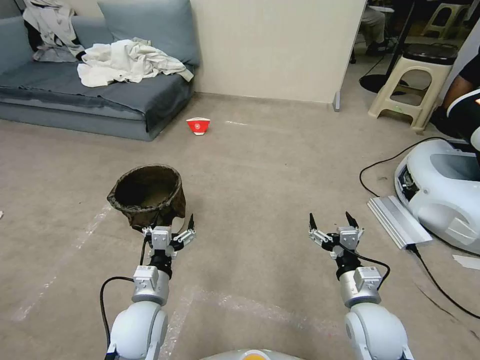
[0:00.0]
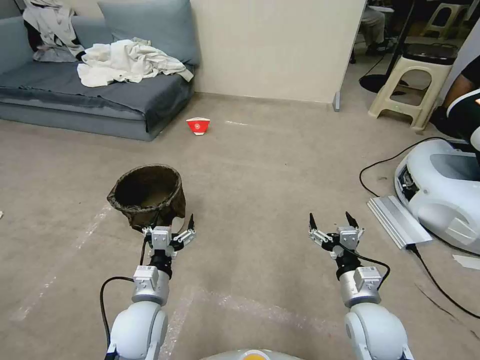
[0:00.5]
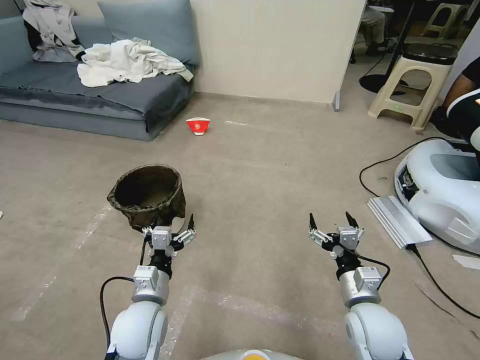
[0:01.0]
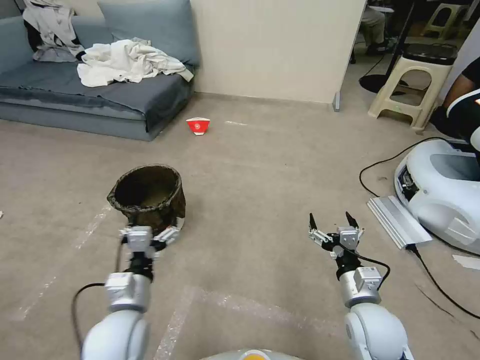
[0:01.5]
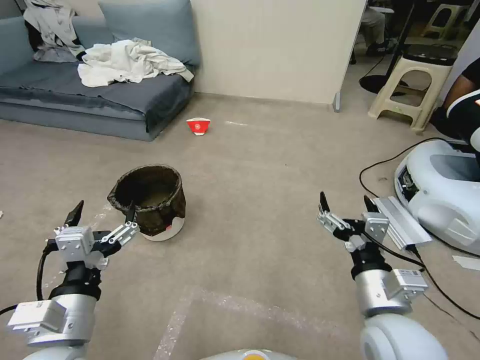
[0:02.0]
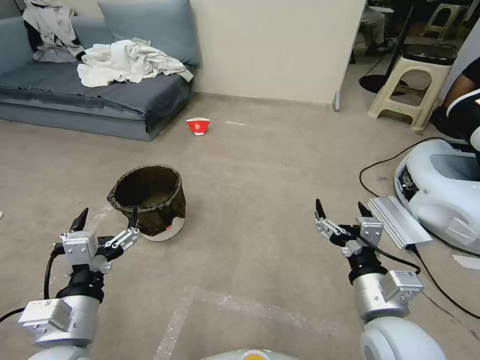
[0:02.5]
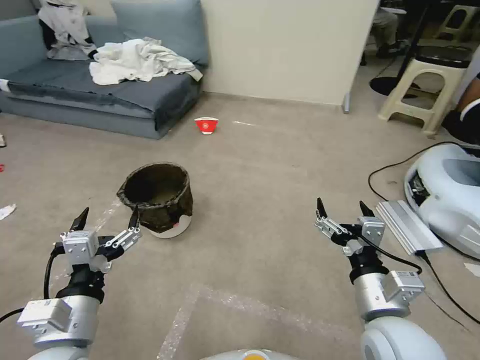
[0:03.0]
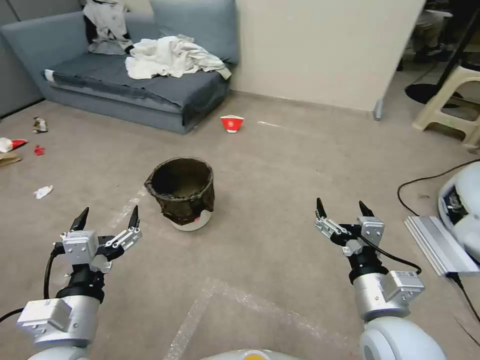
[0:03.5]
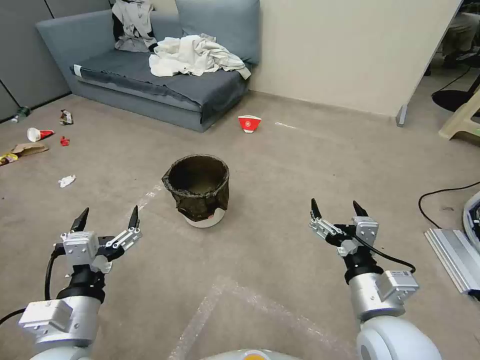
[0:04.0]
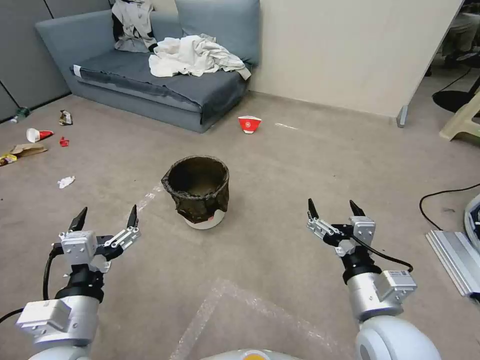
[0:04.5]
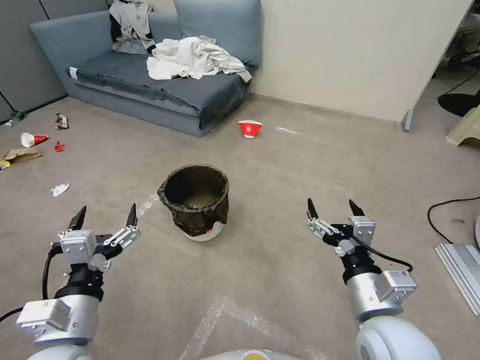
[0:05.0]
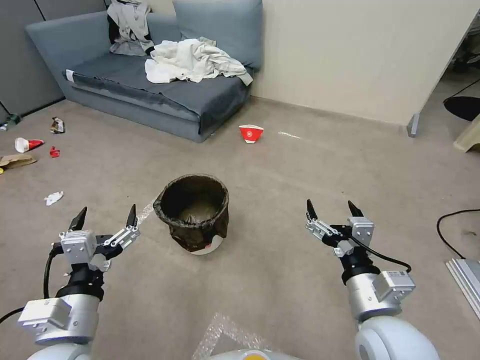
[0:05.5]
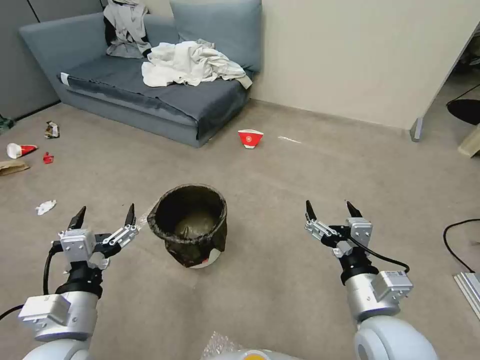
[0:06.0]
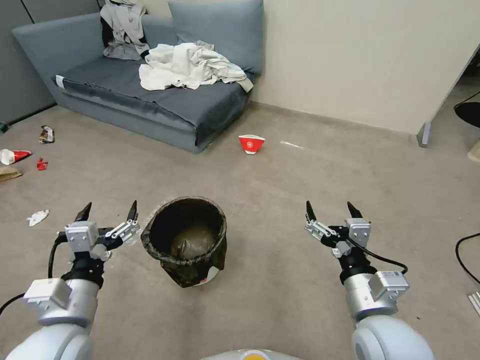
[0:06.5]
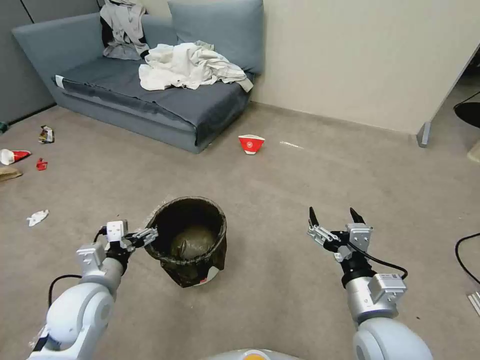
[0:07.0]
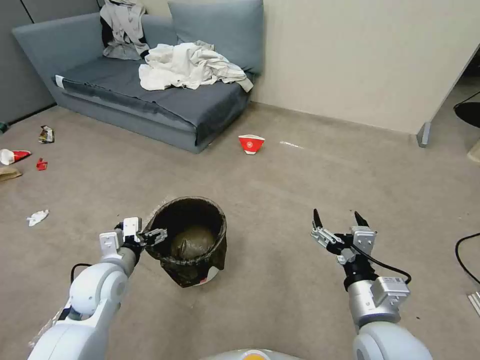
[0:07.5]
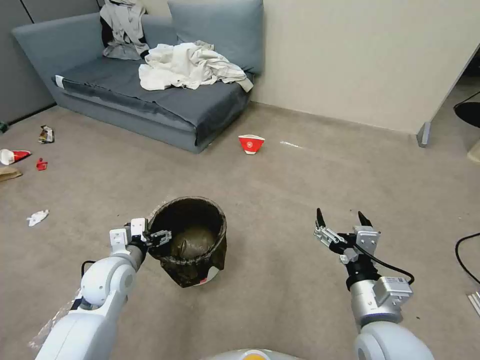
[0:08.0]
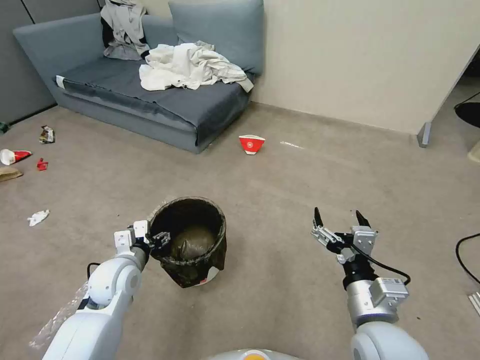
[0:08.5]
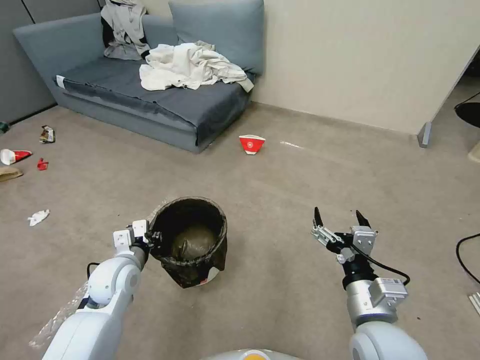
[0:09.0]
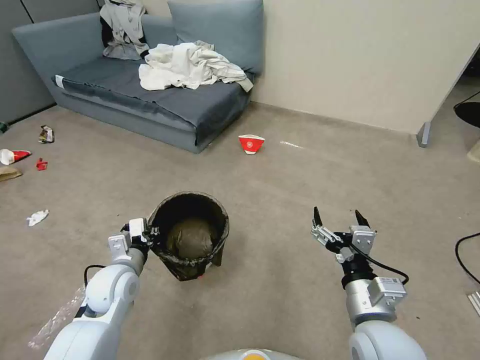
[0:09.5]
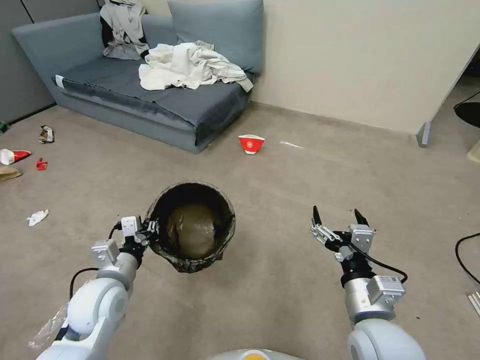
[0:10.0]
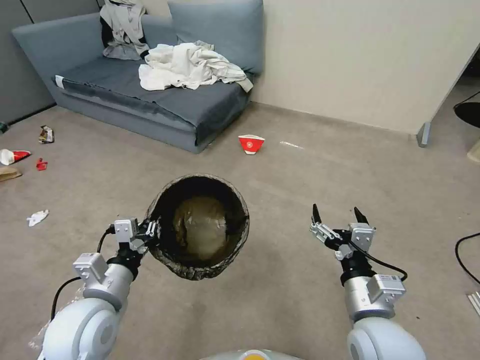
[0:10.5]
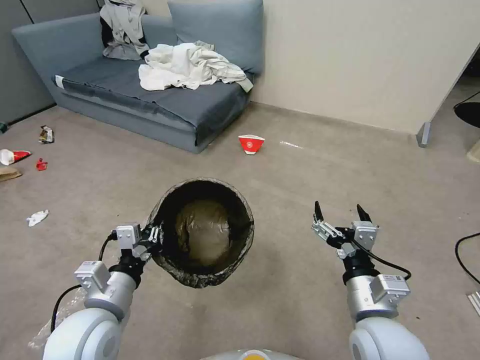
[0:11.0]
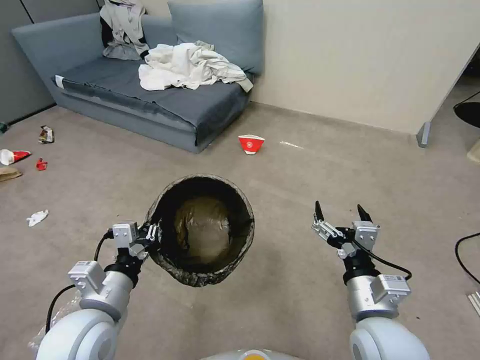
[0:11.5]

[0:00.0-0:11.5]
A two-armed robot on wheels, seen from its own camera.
Task of the whole recording: Pick up the trash can from the floor.
0:06.0 to 0:07.5: The left gripper heads forward and downward, covering some 15 cm.
0:07.5 to 0:09.5: The left gripper closes up.
0:09.5 to 0:11.5: The left gripper is displaced backward and upward by roughly 15 cm.

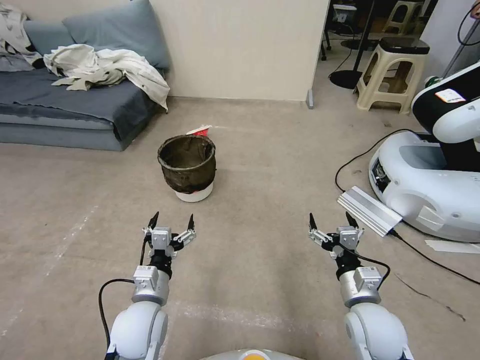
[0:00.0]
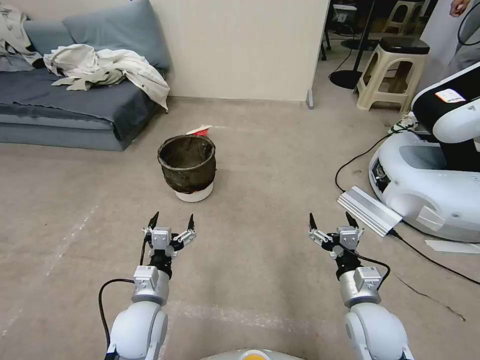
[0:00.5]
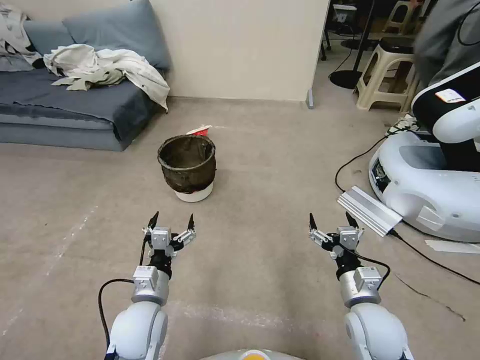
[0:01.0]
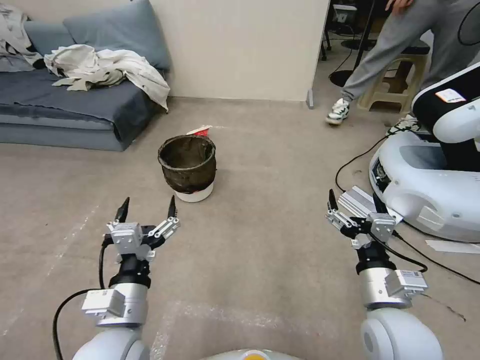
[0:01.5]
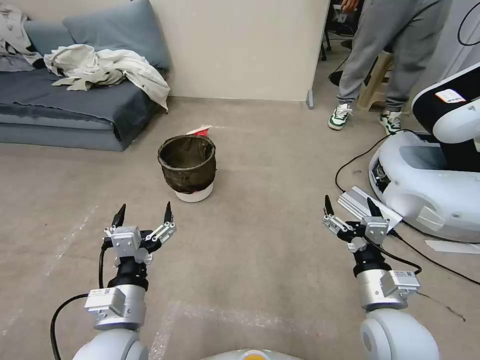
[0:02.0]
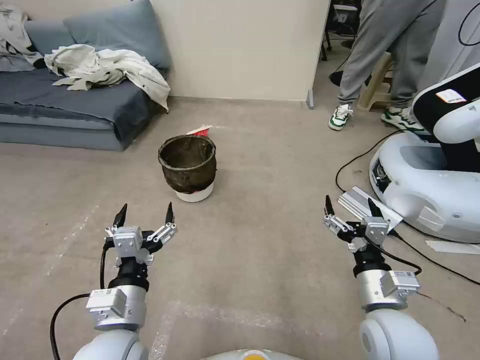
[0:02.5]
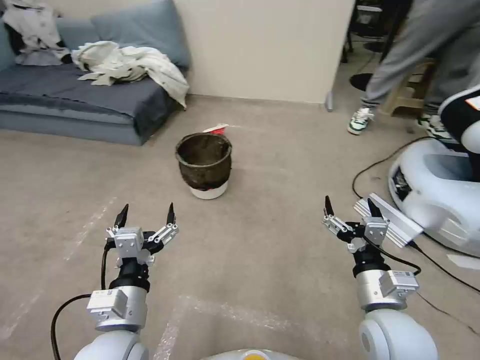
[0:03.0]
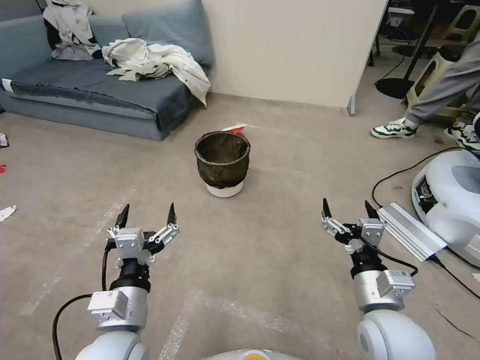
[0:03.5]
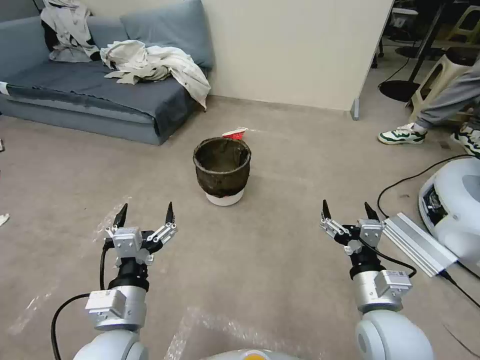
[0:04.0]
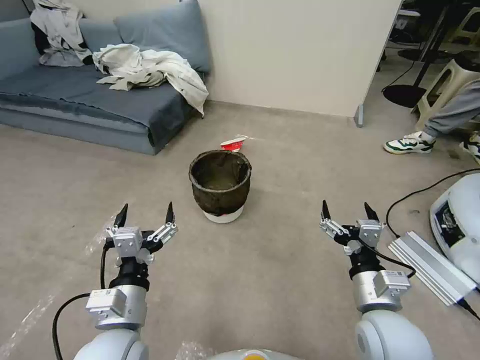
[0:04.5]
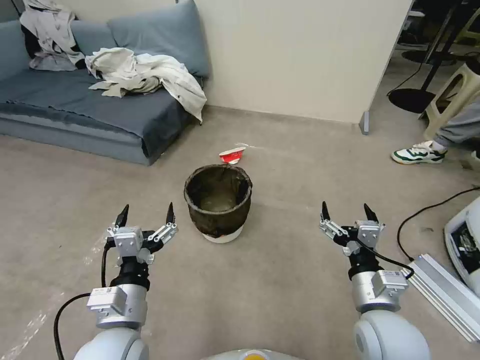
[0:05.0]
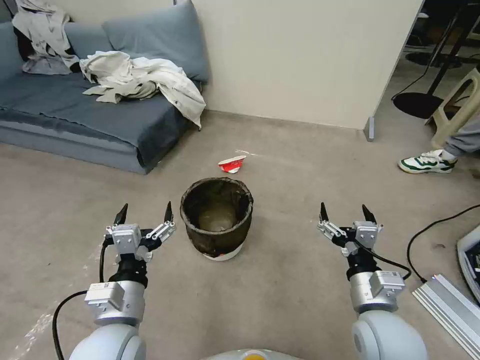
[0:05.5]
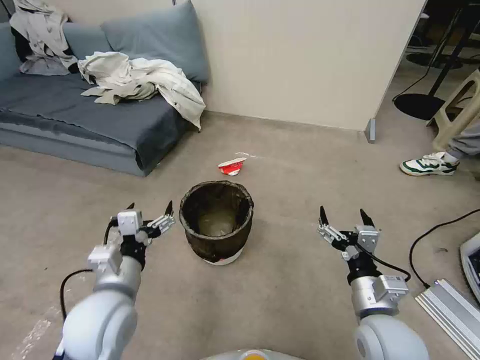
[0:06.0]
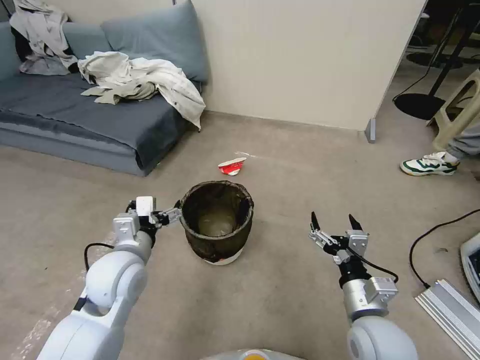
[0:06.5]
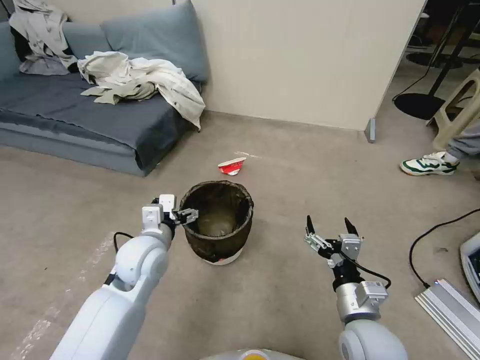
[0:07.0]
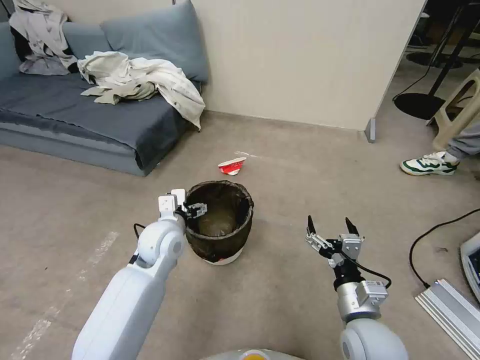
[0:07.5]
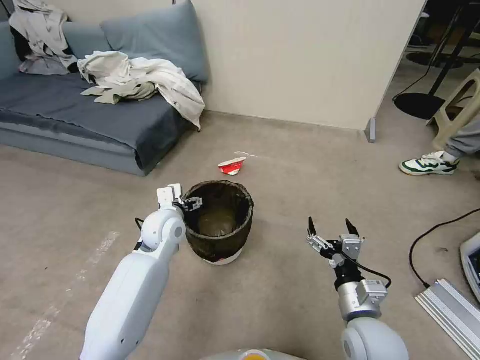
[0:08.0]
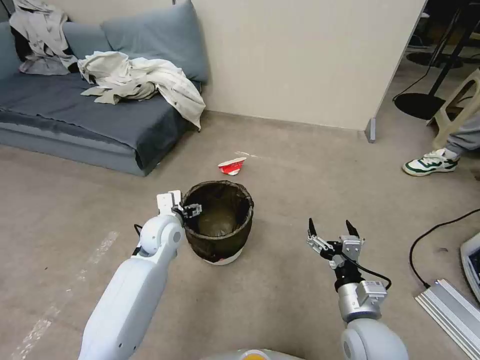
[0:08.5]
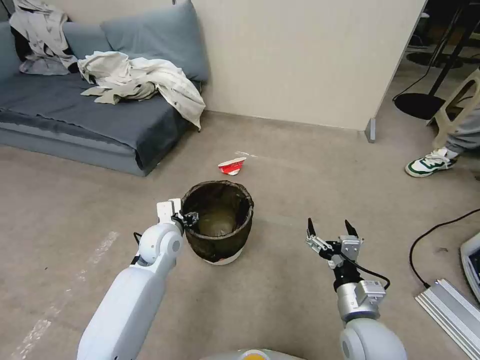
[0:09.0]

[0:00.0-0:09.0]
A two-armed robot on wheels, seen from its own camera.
Task of the whole recording: Pick up the trash can from the floor.
0:04.5 to 0:07.0: The left gripper heads forward, covering about 15 cm.
0:07.0 to 0:09.0: The left gripper heads forward and downward, covering about 10 cm.

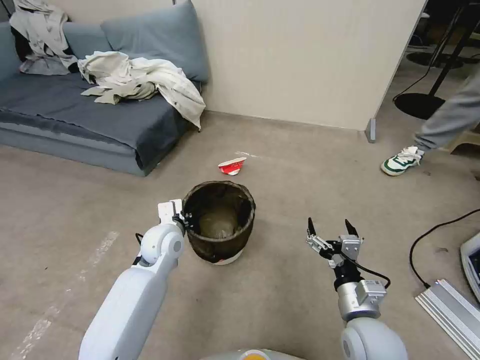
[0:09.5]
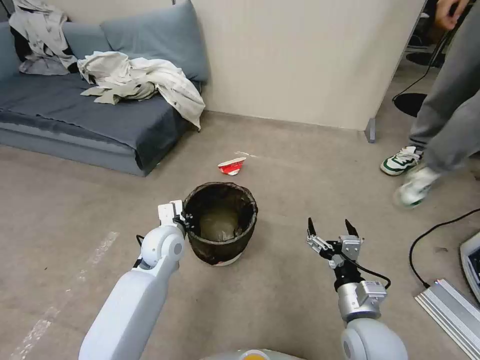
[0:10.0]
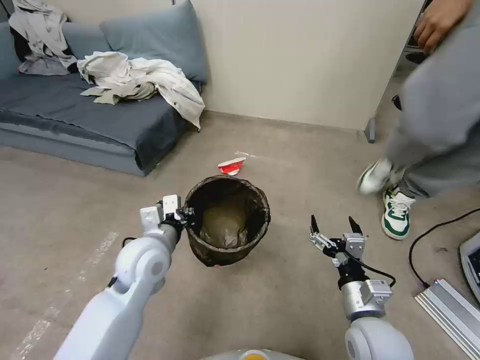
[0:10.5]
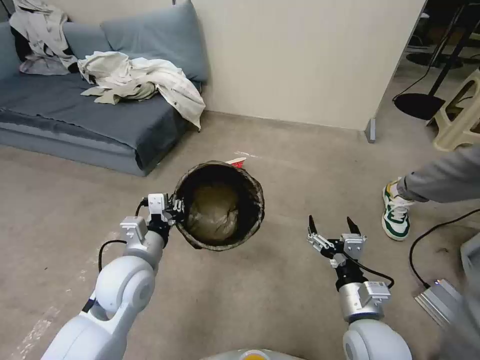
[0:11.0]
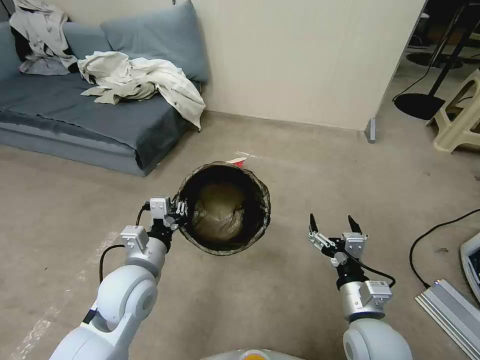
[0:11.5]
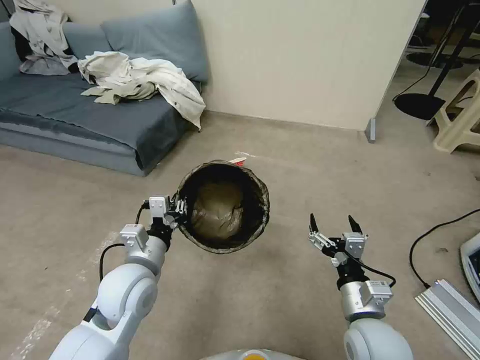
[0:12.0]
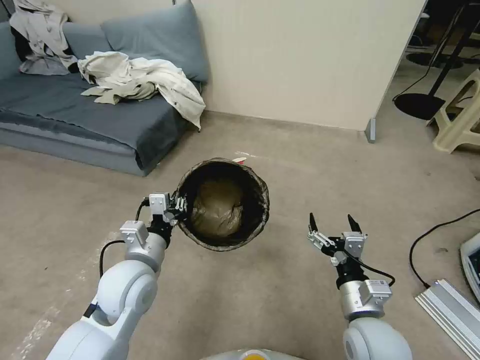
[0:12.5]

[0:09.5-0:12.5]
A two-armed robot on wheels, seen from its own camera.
Task of the whole recording: Pick up the trash can from the floor.
0:09.5 to 0:11.0: The left gripper is displaced backward and upward by about 10 cm.
0:11.0 to 0:12.5: There are only small adjustments of the grippers.

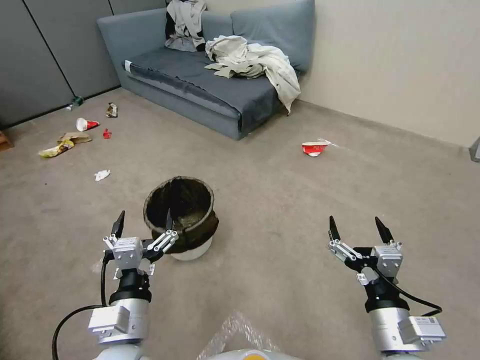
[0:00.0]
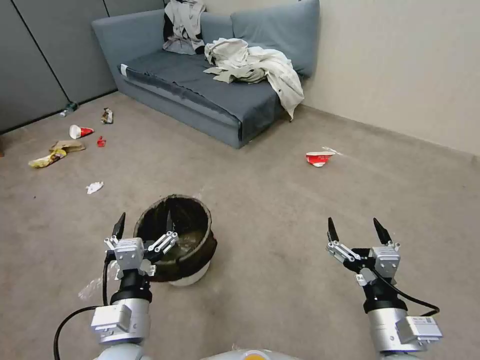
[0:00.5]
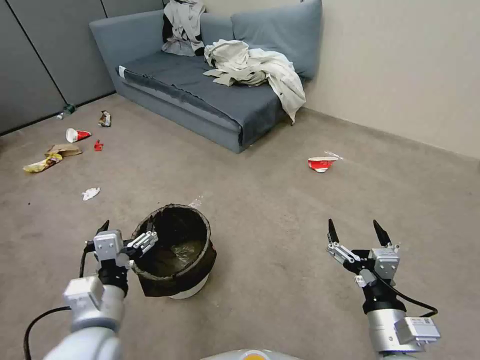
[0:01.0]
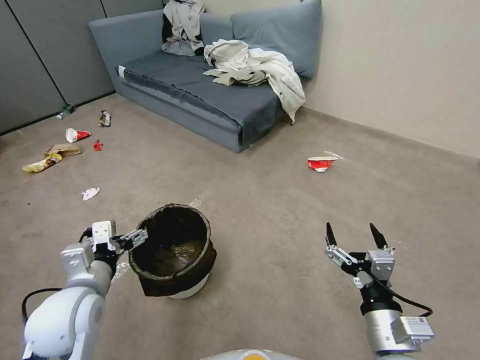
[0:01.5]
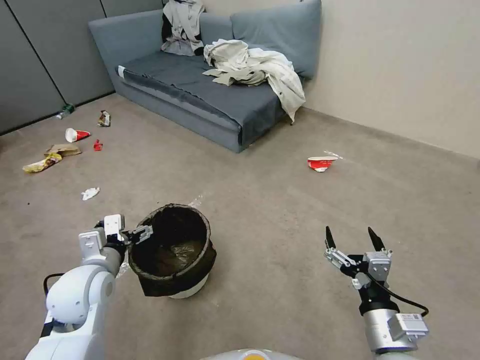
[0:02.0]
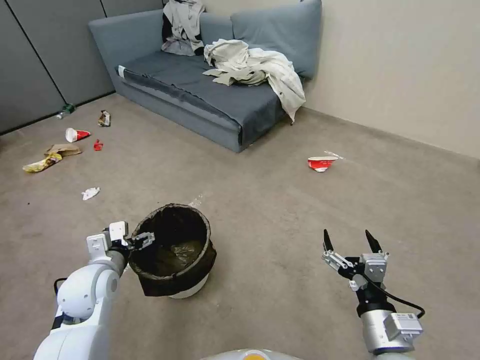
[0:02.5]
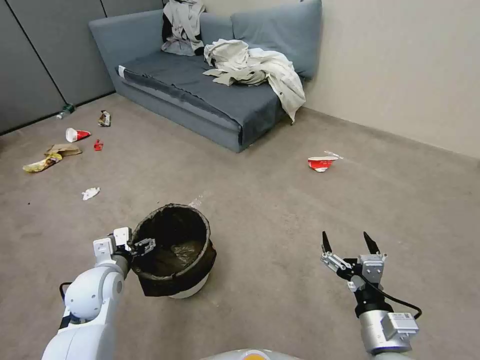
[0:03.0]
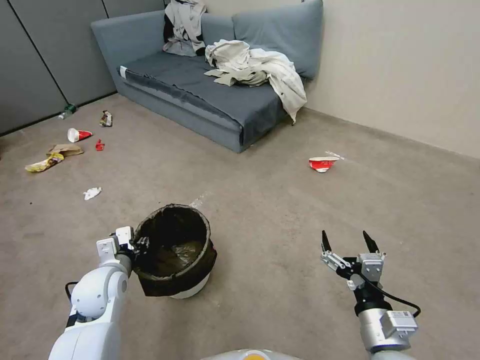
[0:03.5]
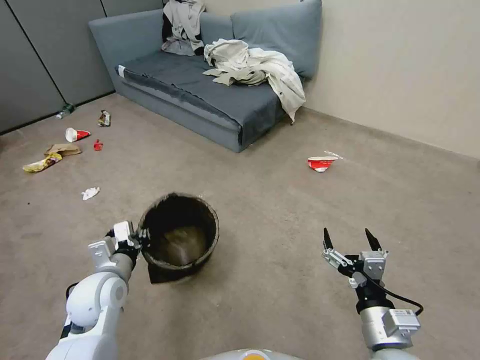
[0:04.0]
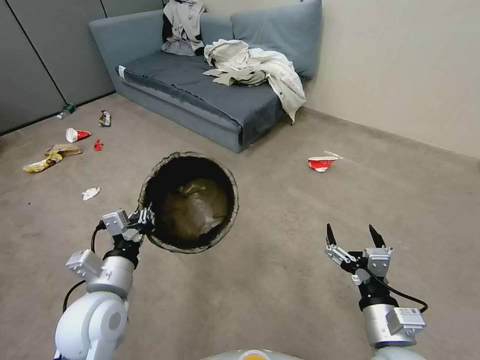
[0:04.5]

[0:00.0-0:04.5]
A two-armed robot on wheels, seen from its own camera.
Task of the whole recording: Pick up the trash can from the floor.
0:00.0 to 0:02.0: The left gripper shifts some 15 cm forward and to the left.
0:02.0 to 0:04.5: The left gripper moves backward, approximately 5 cm, and closes up.
